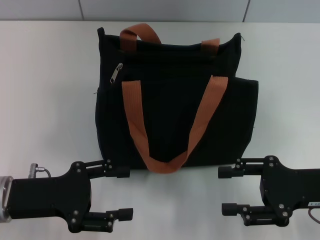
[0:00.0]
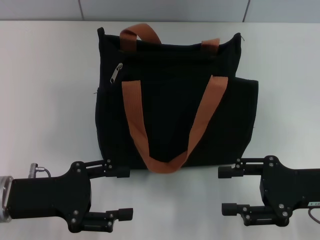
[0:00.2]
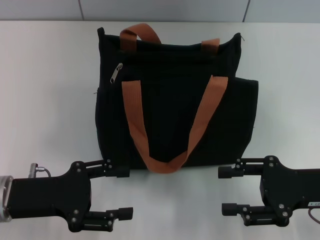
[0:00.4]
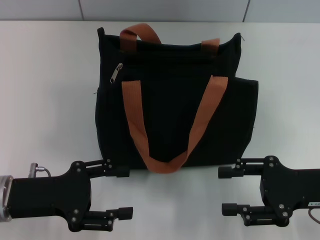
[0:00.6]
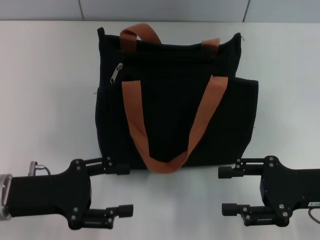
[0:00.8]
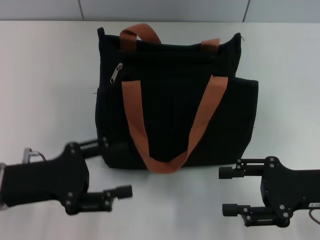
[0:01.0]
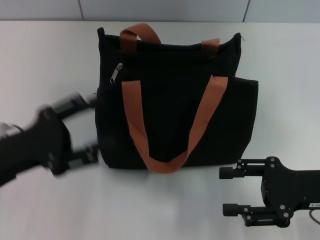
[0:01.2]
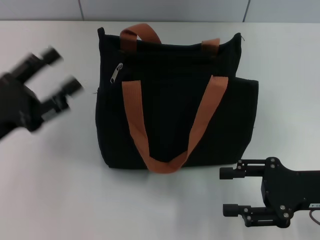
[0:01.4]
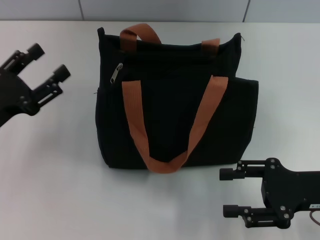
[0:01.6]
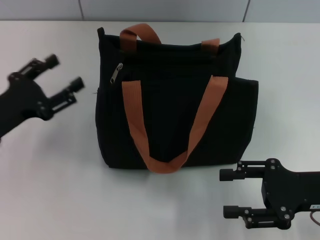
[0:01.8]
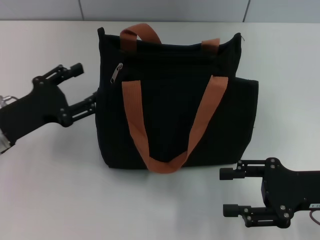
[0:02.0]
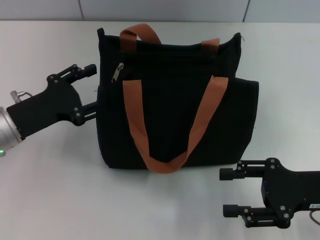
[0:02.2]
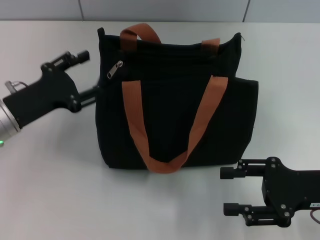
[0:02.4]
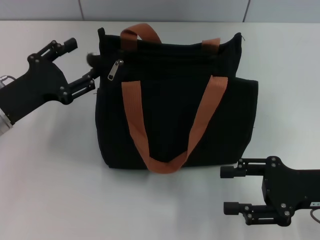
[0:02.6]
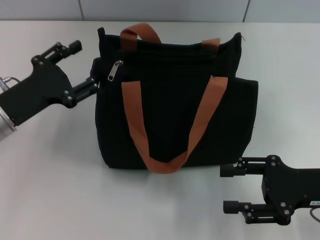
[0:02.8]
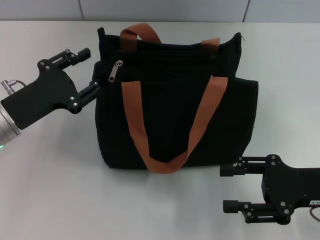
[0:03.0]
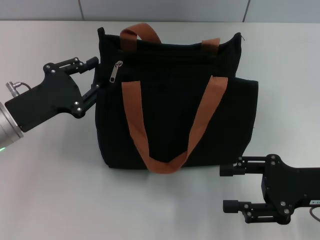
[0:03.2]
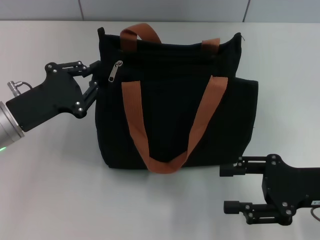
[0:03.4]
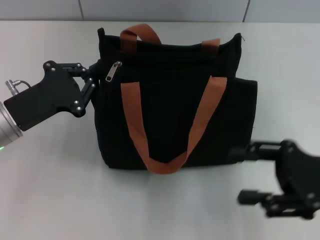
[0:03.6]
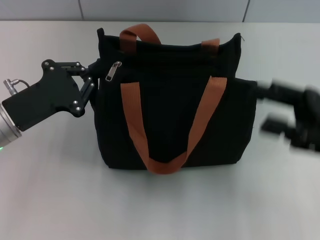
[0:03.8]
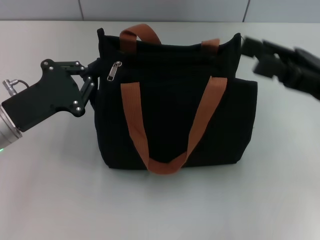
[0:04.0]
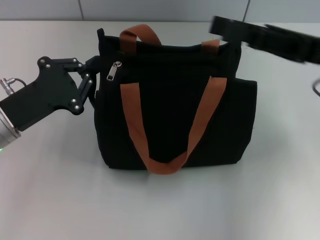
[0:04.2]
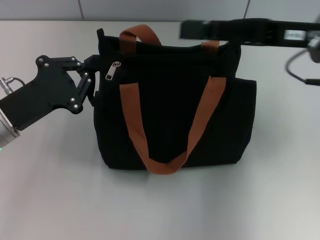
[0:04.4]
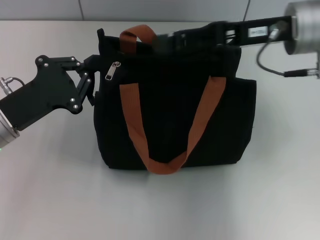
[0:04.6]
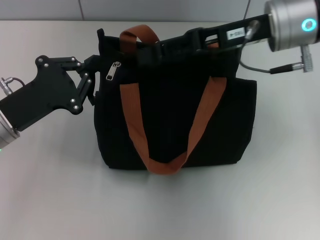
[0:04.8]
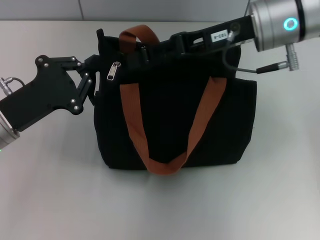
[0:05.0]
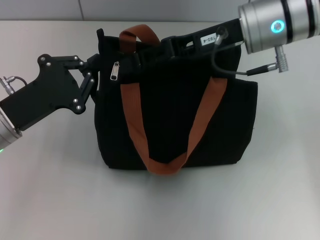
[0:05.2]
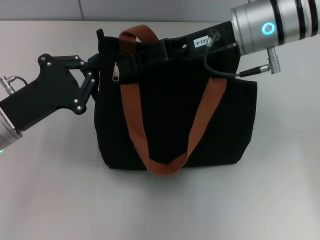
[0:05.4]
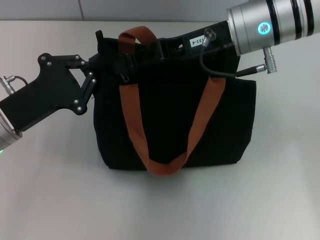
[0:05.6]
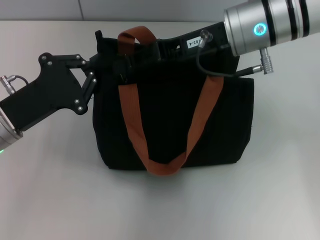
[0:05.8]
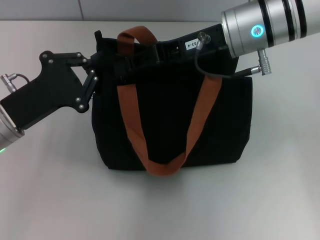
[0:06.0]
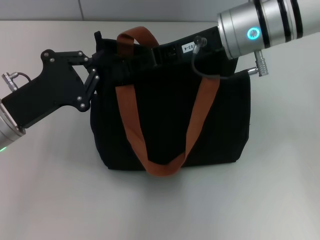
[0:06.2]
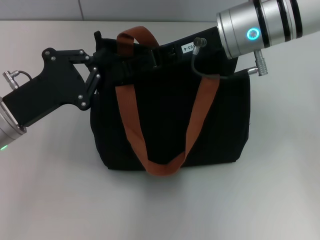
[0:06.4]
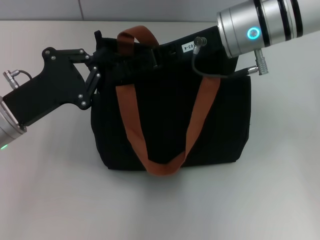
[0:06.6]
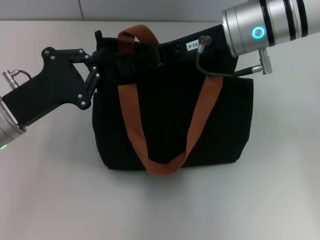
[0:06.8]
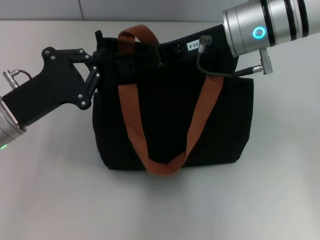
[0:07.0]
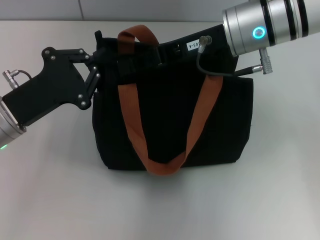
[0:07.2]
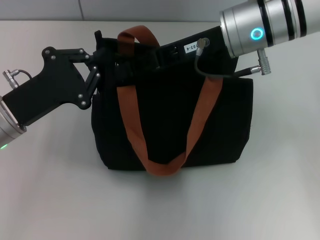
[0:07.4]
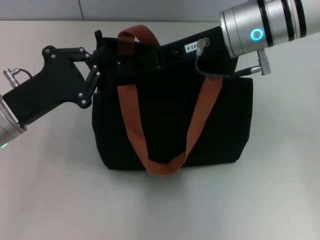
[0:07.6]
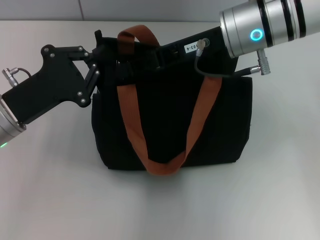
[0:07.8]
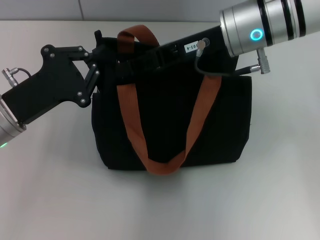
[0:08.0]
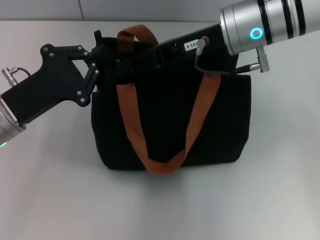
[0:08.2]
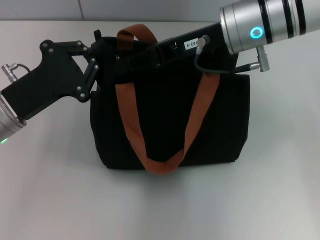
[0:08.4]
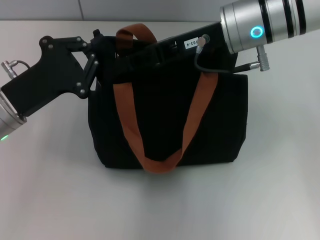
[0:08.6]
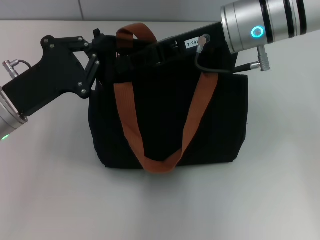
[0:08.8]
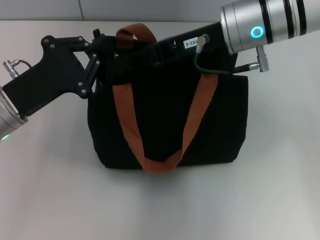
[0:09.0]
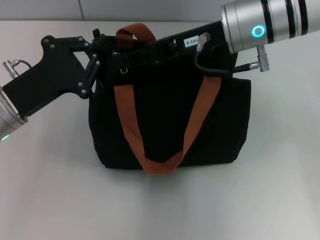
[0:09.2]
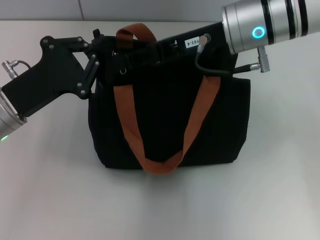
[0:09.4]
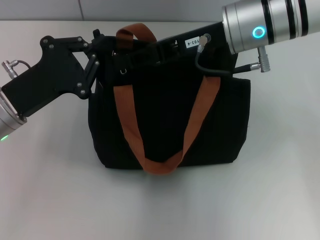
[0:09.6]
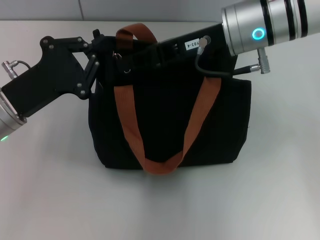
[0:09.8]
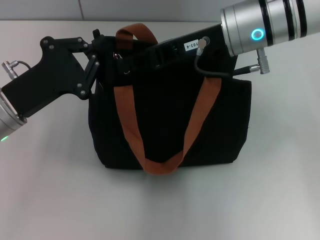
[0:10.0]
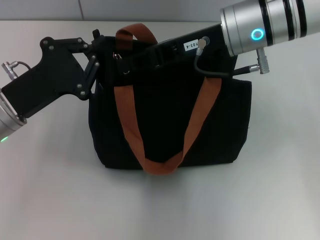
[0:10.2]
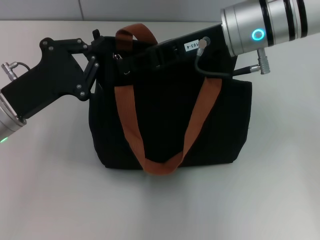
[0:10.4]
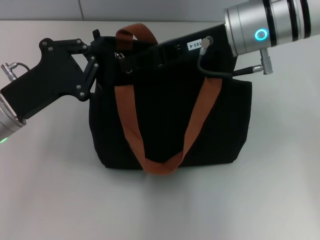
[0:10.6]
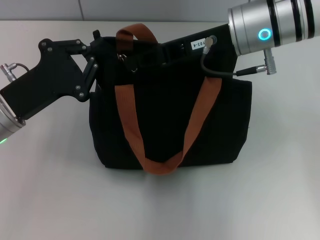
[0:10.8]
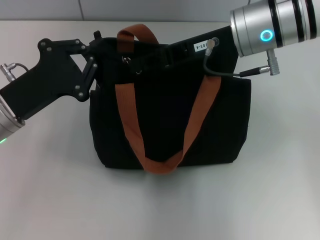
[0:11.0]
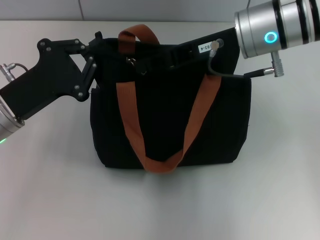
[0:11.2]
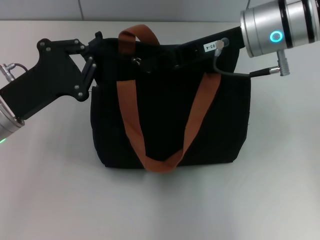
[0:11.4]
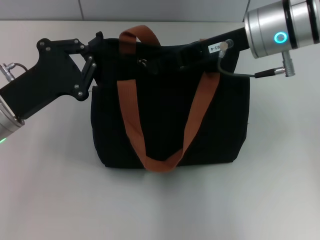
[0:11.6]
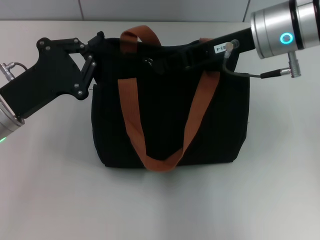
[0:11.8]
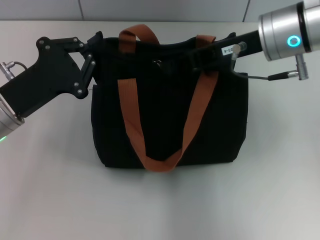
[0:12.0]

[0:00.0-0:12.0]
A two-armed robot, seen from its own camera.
0:00.0 to 0:01.6: The left gripper ends up about 5 cm from where it was.
0:01.6 to 0:03.0: The left gripper ends up some 5 cm from where it was.
0:03.0 to 0:04.4: The left gripper closes its fingers, while the right gripper heads upward, forward and to the left, covering roughly 20 cm.
0:04.4 to 0:06.0: The right gripper shifts roughly 10 cm to the left.
0:06.0 to 0:07.6: The grippers move only a little.
0:07.6 to 0:10.4: The two grippers keep their place.
0:10.4 to 0:12.0: The grippers make only small movements.

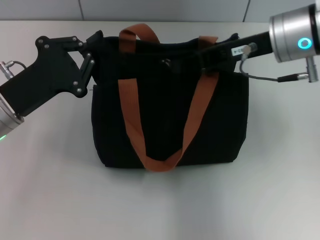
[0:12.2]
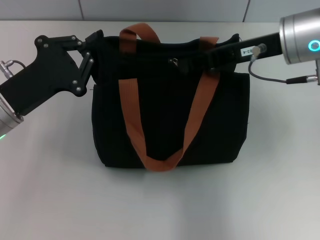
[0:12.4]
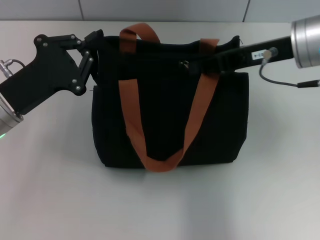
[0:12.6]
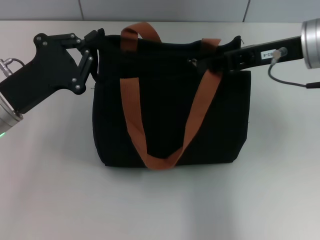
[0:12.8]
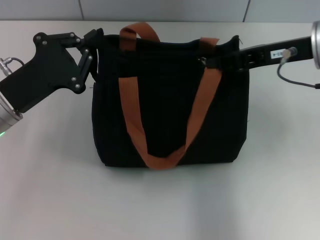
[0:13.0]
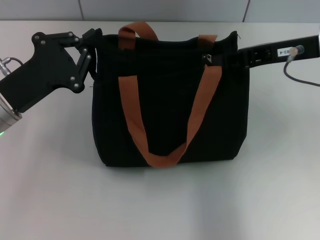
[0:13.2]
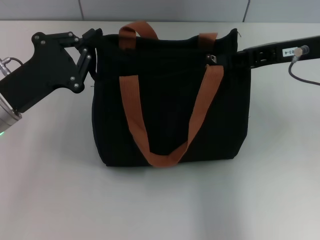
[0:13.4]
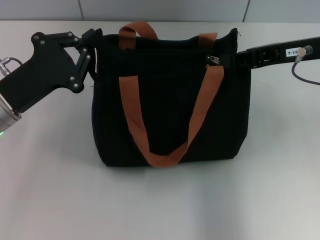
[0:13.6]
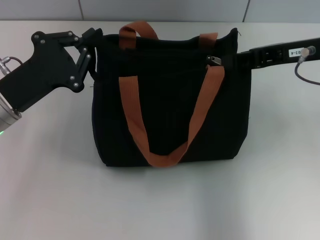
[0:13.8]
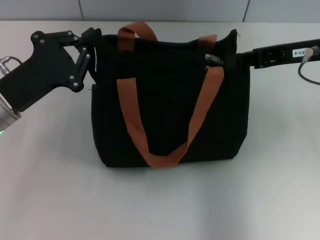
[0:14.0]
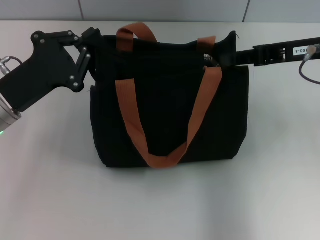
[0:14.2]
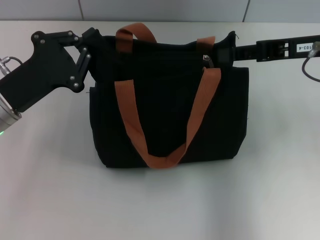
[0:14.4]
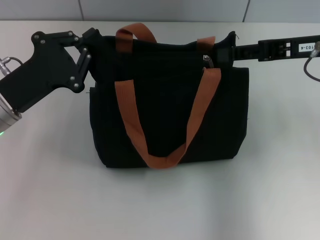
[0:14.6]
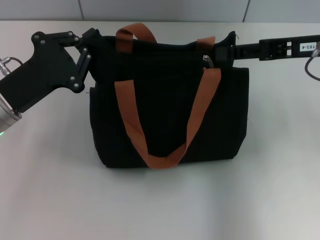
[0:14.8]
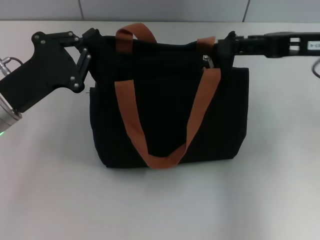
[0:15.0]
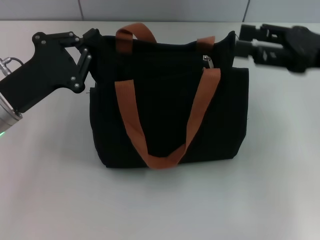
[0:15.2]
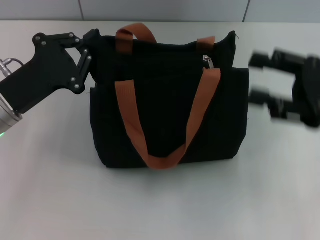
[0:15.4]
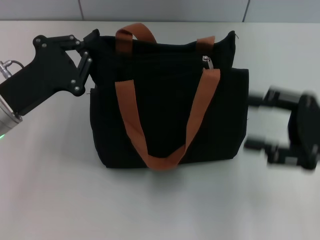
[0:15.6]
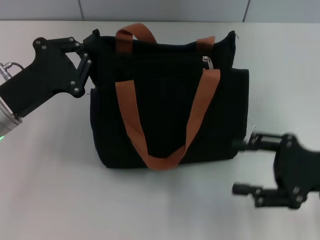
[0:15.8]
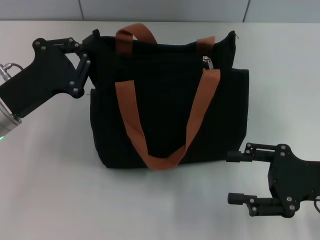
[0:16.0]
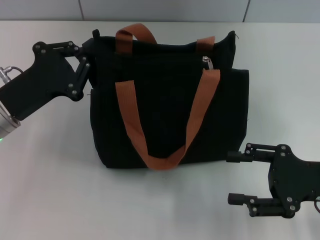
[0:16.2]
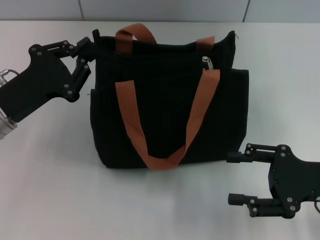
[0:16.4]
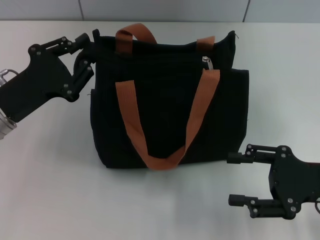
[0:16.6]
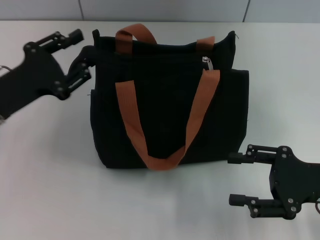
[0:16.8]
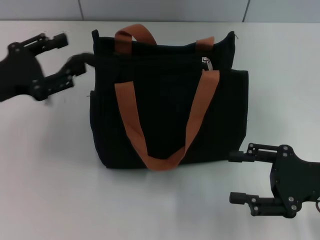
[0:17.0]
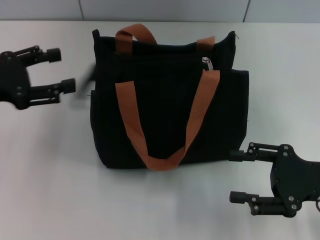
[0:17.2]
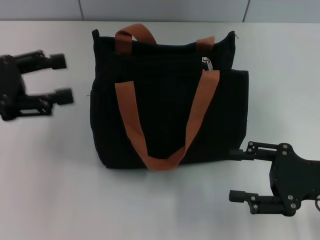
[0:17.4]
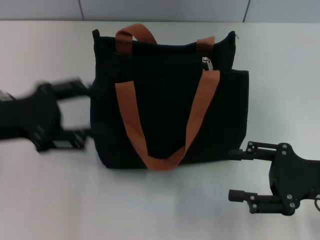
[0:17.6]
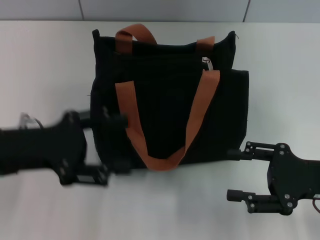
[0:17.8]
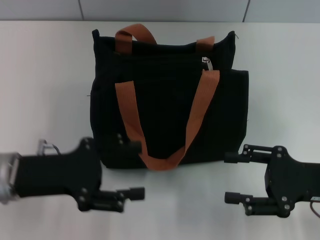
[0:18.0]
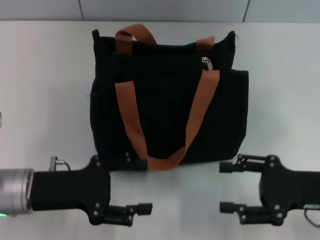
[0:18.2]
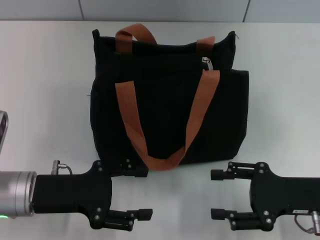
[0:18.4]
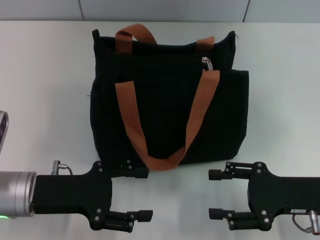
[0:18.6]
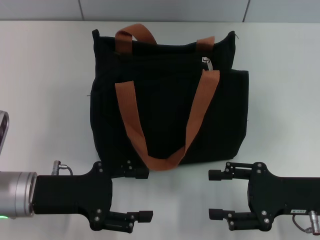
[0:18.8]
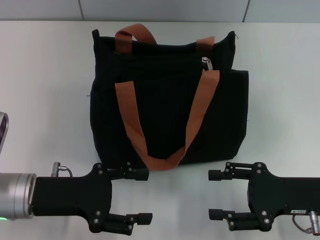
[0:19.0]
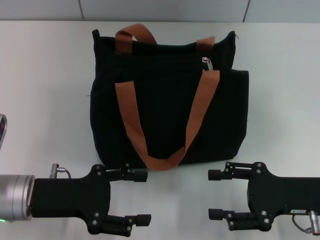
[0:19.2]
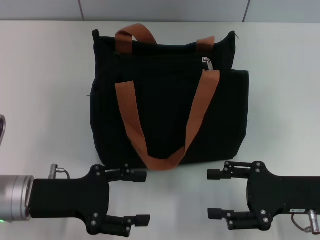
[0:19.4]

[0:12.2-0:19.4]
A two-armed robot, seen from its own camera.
Step, 0:12.2 to 0:14.8: Pull up the zipper with your right hand.
Step, 0:15.0 to 0:16.8: Grab the zipper with your left hand.
0:12.2 to 0:13.6: The right gripper goes roughly 5 cm to the right.
0:13.6 to 0:15.0: The right gripper opens.
0:15.0 to 0:16.6: The right gripper heads downward and backward, covering approximately 15 cm.
0:16.6 to 0:18.0: The left gripper travels to the left and back again, roughly 5 cm each way, and opens its fingers.
0:18.0 to 0:19.4: The grippers move only a little.
